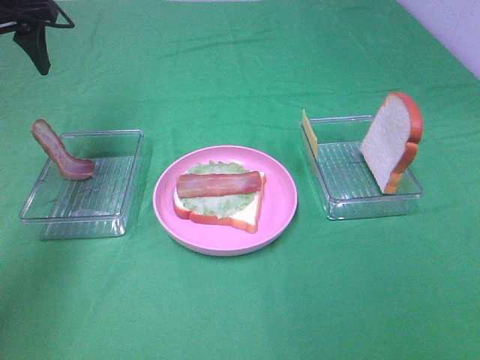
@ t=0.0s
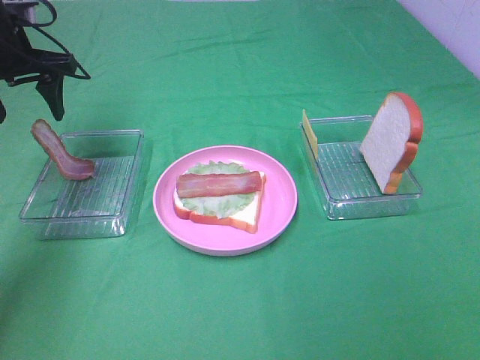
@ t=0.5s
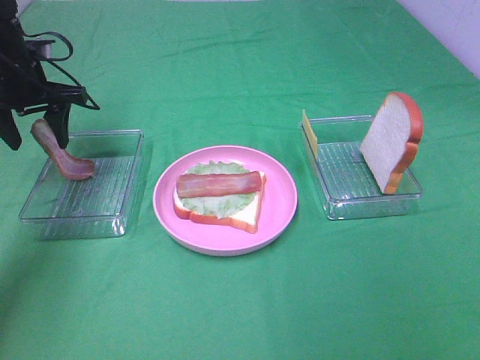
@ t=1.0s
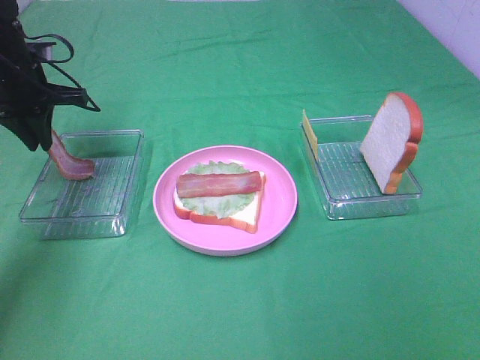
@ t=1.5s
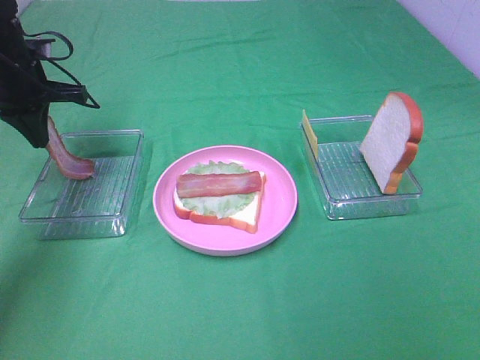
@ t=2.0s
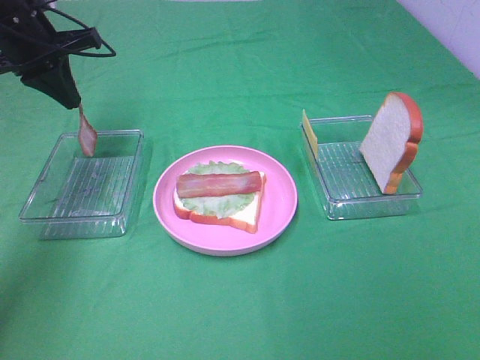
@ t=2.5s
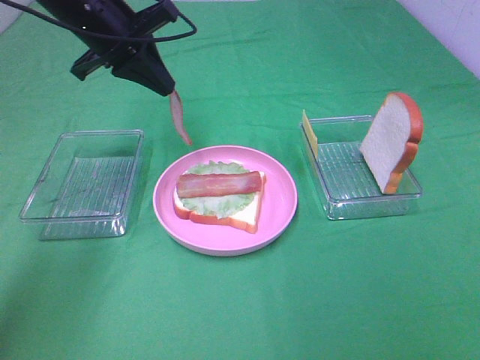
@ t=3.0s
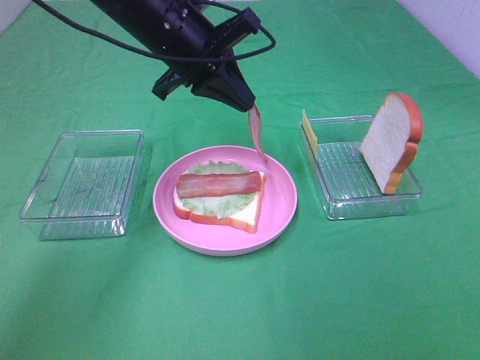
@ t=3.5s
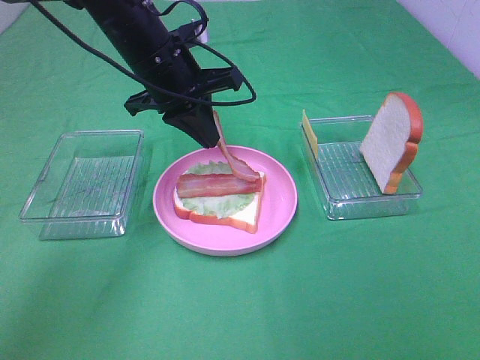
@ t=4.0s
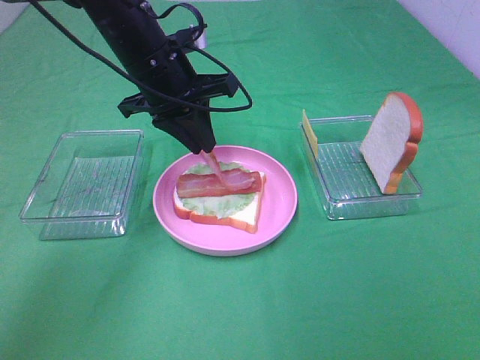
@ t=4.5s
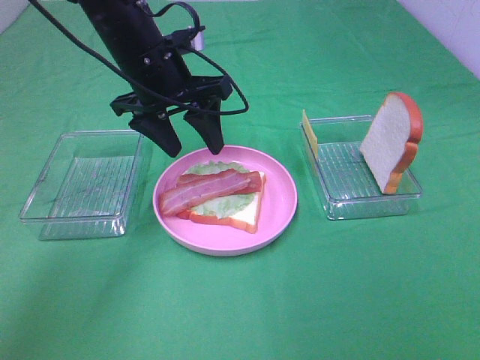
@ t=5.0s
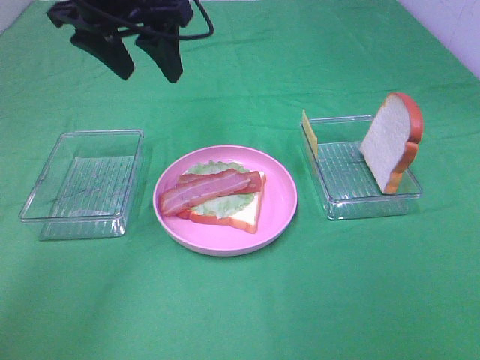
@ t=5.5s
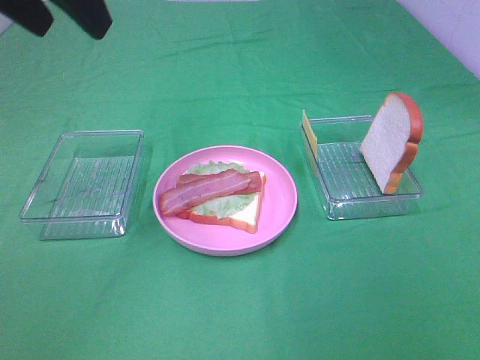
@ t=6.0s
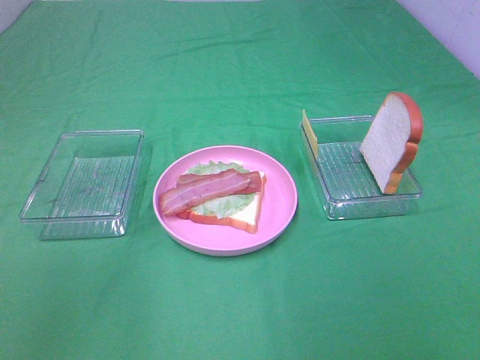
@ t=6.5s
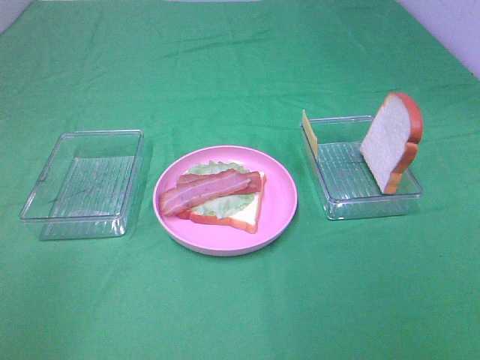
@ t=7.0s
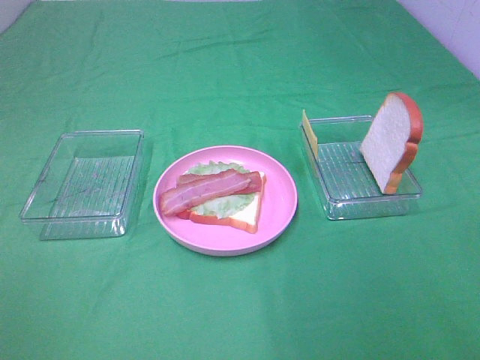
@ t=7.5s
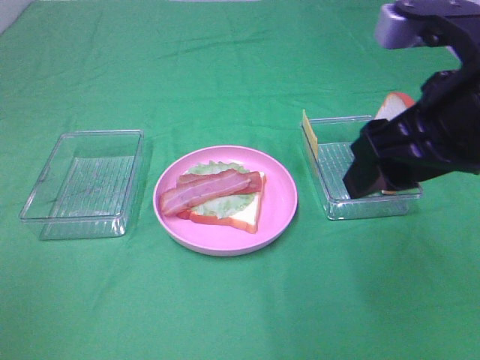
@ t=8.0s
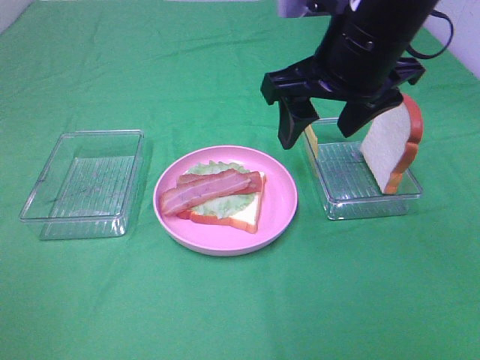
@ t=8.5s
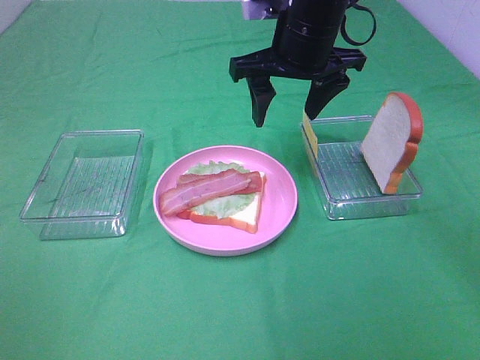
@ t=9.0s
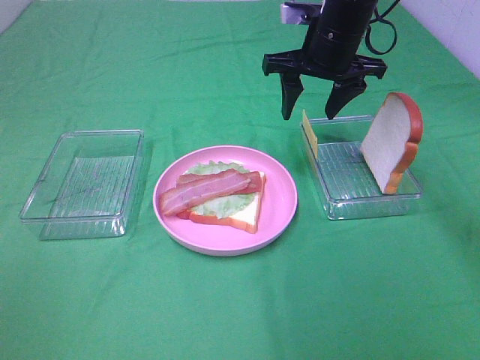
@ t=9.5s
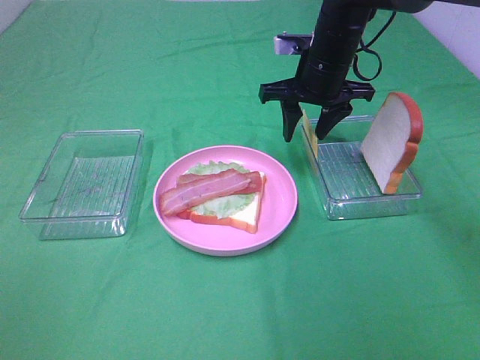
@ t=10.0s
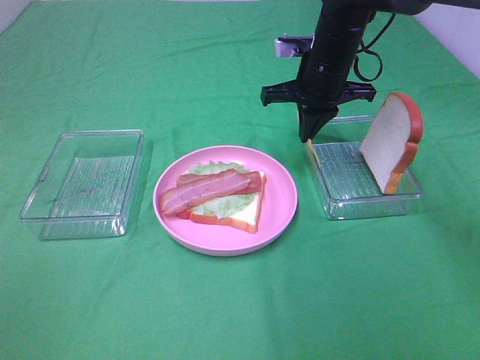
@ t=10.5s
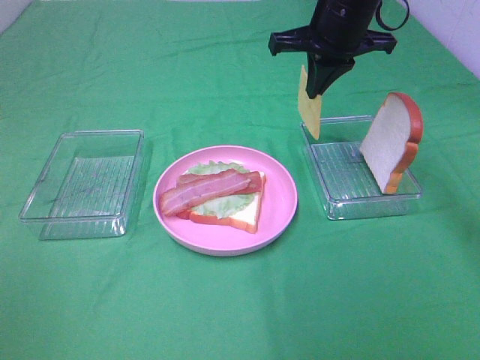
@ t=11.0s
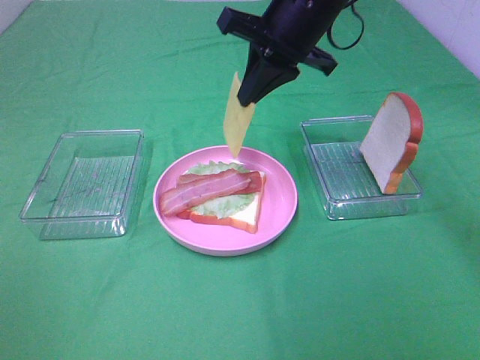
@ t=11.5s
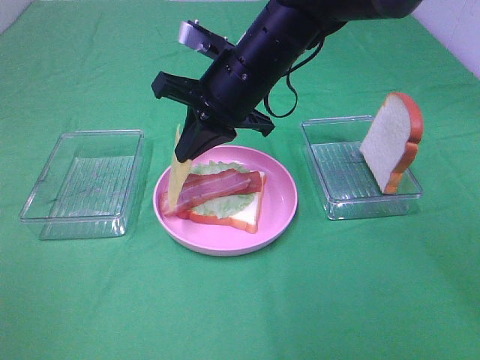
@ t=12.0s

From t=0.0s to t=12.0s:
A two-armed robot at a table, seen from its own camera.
Task of the whole recording: Make sandwiches.
Step, from t=2.0s to t=4.5s: Left hand:place bacon on bacon.
Step, from t=5.0s to t=10.5s: Right hand:grab the cheese slice.
From t=0.0s to t=2.0s: The left gripper is displaced downward by some 10 cm, and closes up.
From t=2.0s to t=4.0s: The left gripper travels to the right by some 20 cm.
From t=4.0s to t=6.0s: The left gripper moves upward, backward and to the left, roughly 25 cm, and opens its fingers.
From t=6.0s to t=8.0s: The right gripper goes about 25 cm forward and to the left. Meanwhile the left gripper goes about 30 cm backward and to the left.
From t=8.0s to t=10.0s: The right gripper goes some 25 cm forward and downward.
From t=10.0s to t=12.0s: The right gripper moves to the left and backward, some 15 cm, and closes up.

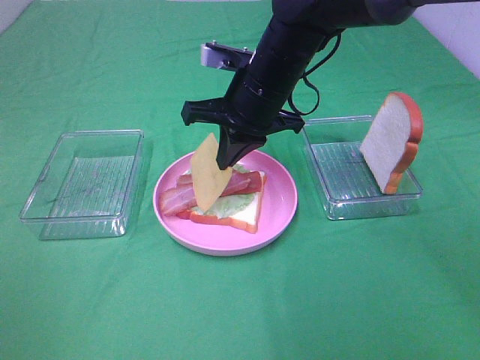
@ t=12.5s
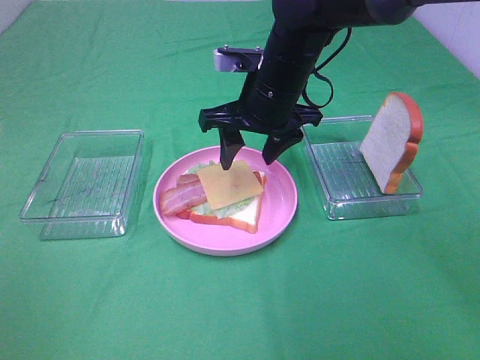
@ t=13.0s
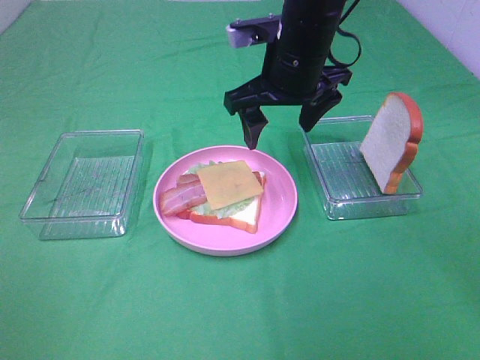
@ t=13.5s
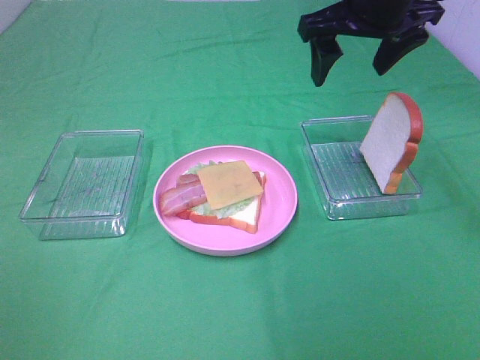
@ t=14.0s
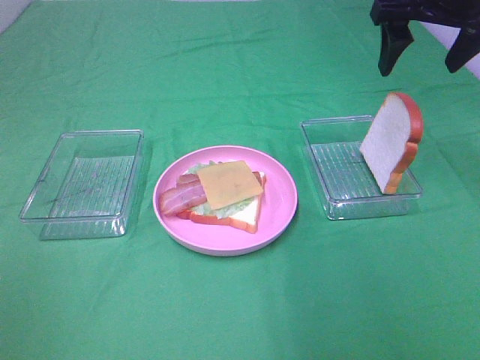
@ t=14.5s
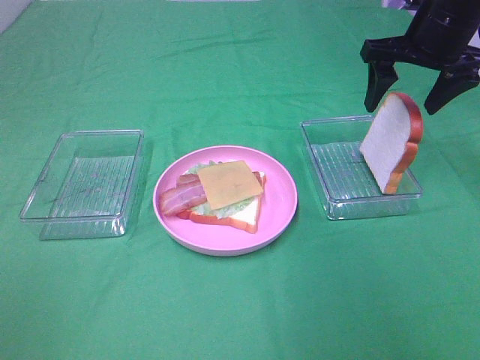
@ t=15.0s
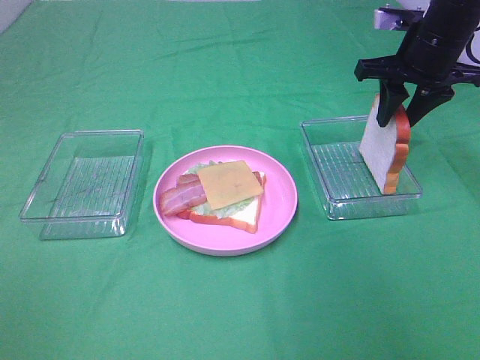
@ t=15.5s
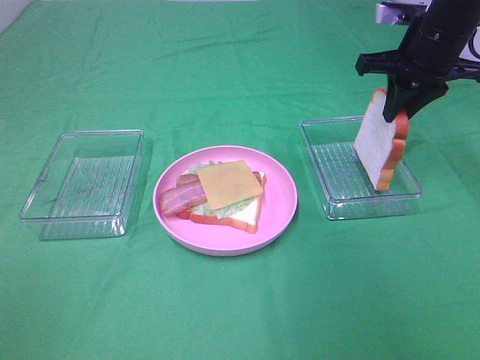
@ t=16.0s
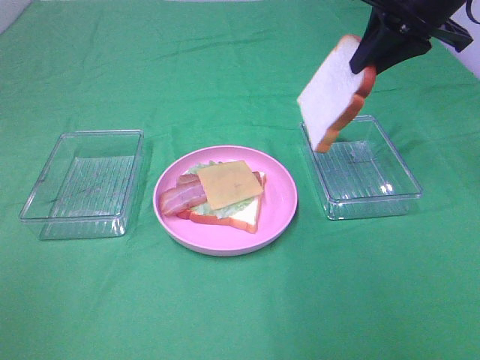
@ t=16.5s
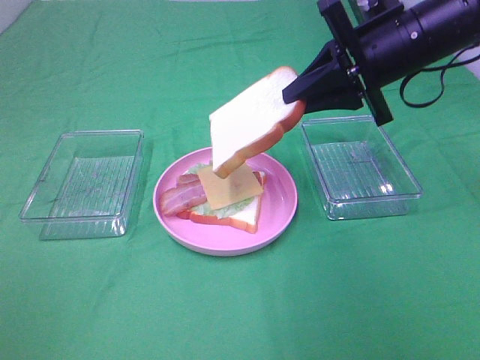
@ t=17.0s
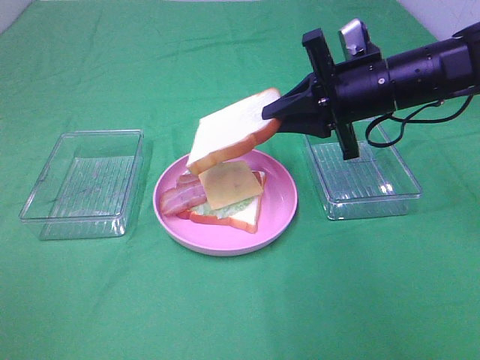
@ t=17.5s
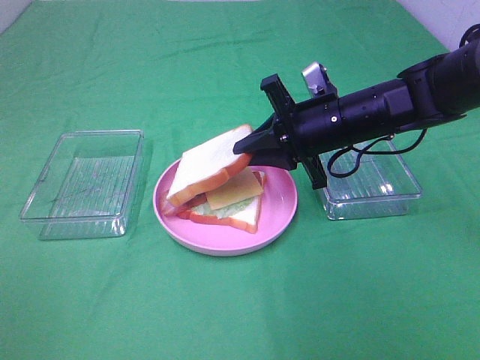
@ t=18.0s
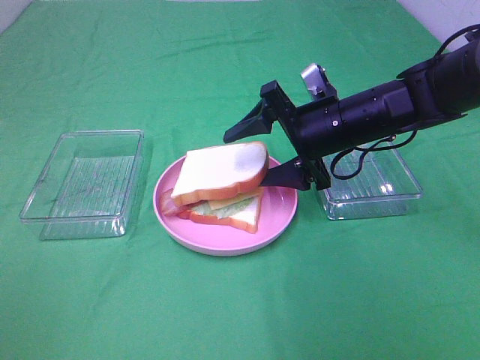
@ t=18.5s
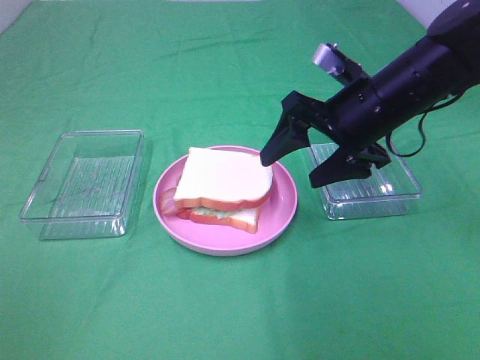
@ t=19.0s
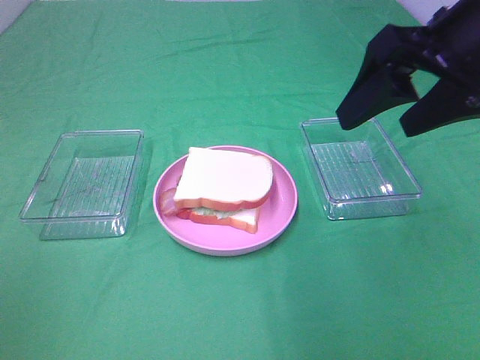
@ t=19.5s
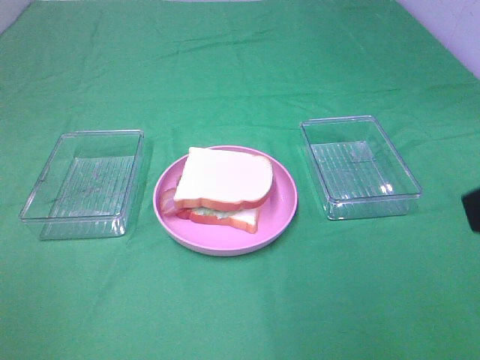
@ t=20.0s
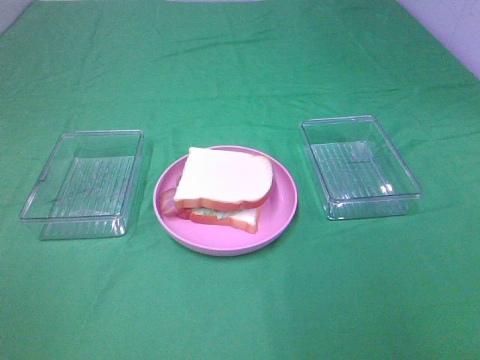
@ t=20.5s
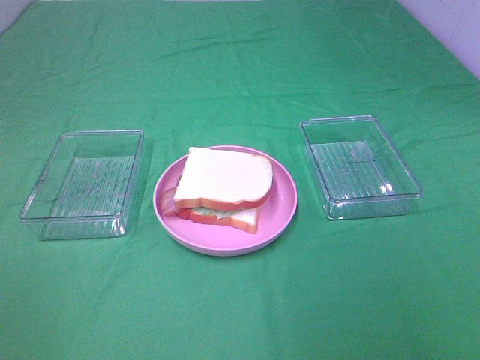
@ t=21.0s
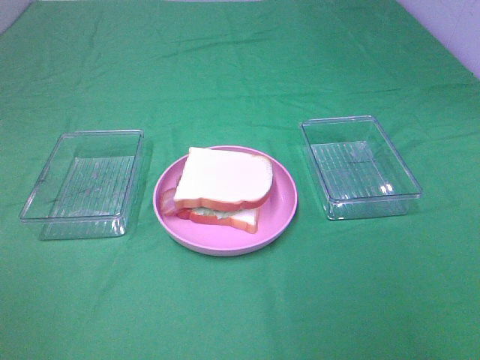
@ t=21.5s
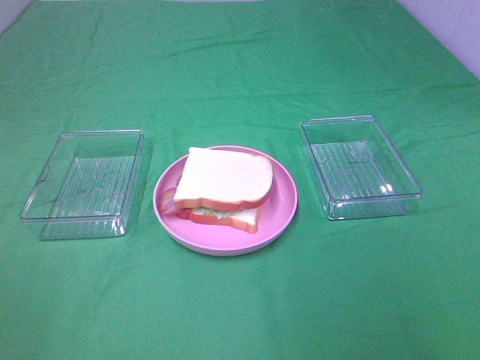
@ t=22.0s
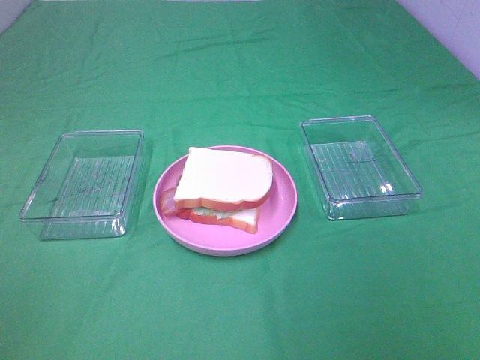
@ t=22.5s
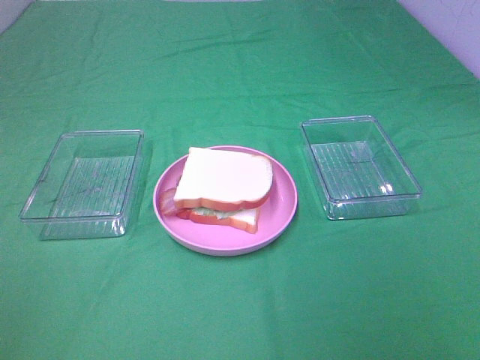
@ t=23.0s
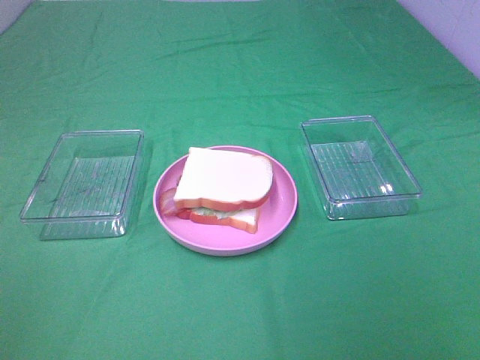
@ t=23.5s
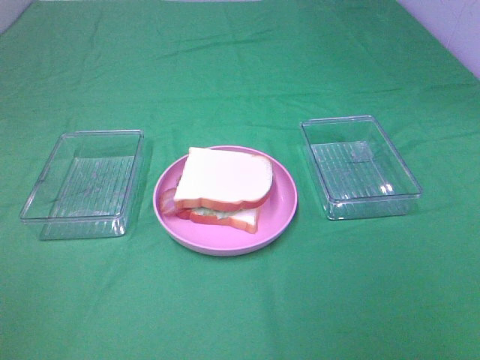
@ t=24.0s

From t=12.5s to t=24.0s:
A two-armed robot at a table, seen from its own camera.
Task of the whole recording: Make sandwiches.
Step, from t=13.5s to t=15.5s: Right hand:grab the bread slice.
Step, from t=16.0s to t=18.5s: Right hand:place the bread slice on the cheese slice.
From t=12.5s to t=14.5s: The right gripper travels to the right and upward by some 25 cm, and opens its fingers.
From t=14.5s to t=16.5s: The right gripper reaches approximately 10 cm downward, then returns, and closes.
From t=16.5s to t=18.5s: The right gripper moves downward and to the left, approximately 20 cm, and opens its fingers.
From t=18.5s to t=20.0s: The right gripper shifts some 35 cm backward, upward and to the right.

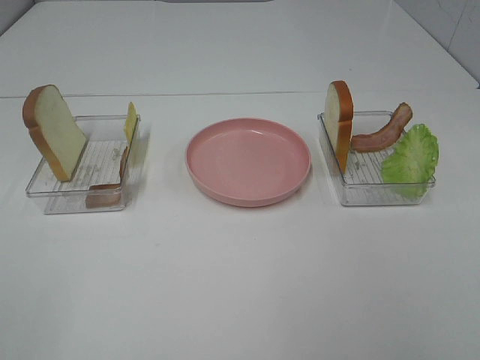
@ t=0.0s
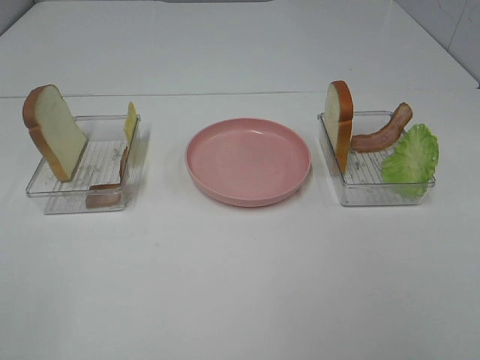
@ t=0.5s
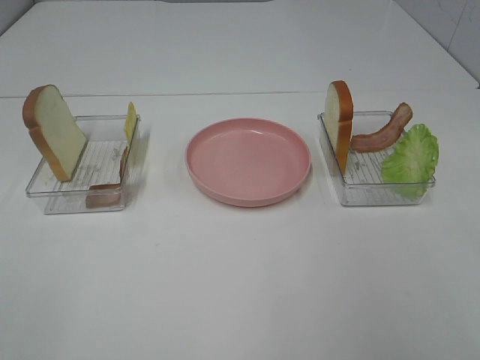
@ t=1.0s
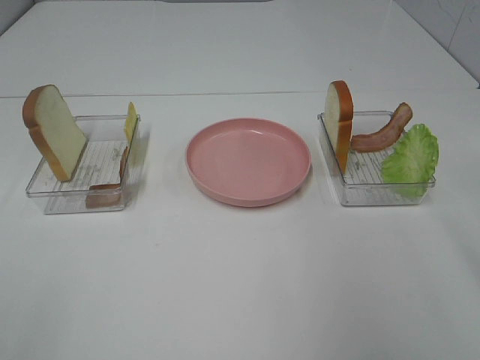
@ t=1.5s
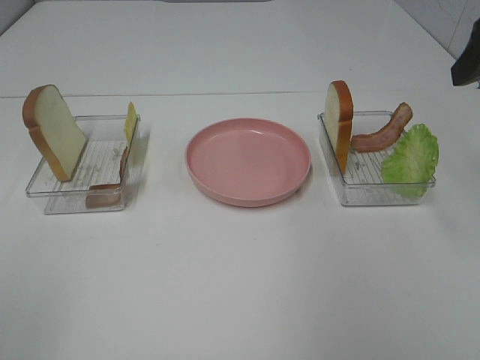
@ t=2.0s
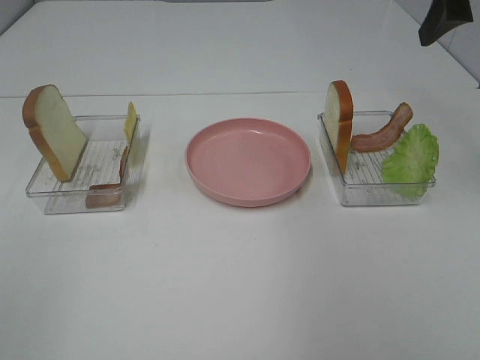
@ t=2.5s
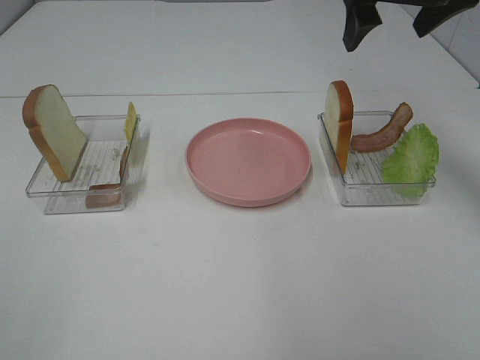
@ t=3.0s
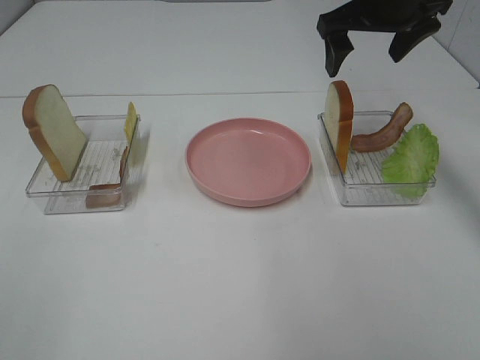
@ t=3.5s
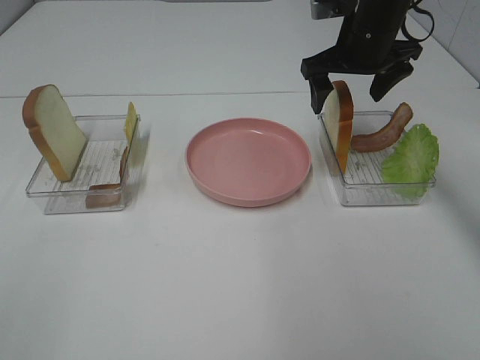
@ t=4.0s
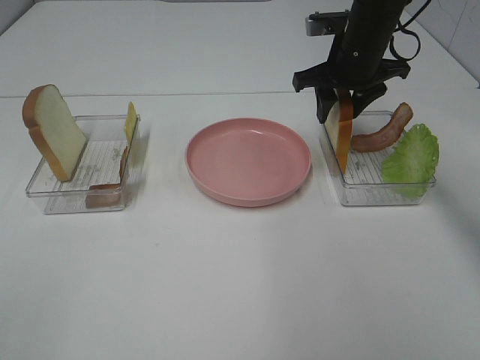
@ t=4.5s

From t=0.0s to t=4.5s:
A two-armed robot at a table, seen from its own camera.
Task of the whole recording: Make sandwiches.
From t=0.0s to t=2.0s: The right gripper goes approximately 25 cm forward.
From t=2.0s to t=4.5s: The right gripper moves forward, downward and to the left, approximately 25 cm, and closes its fingers.
